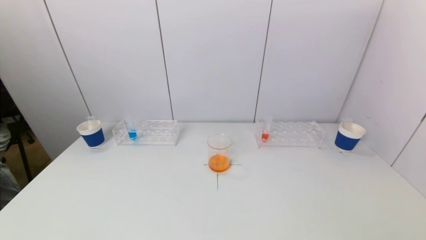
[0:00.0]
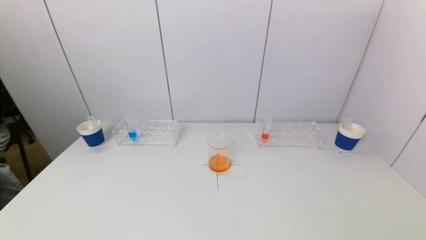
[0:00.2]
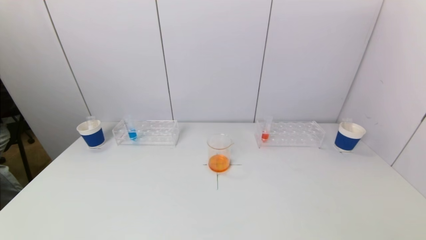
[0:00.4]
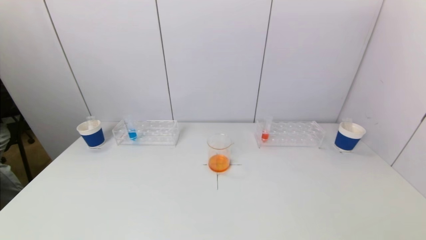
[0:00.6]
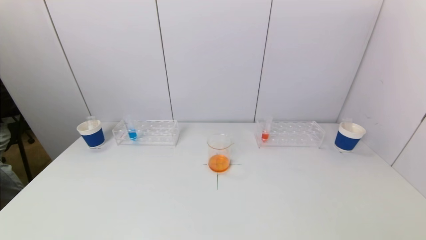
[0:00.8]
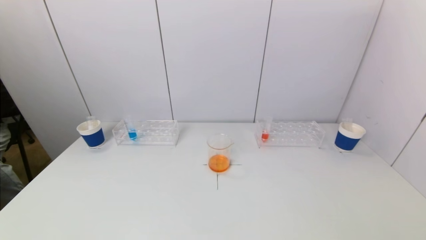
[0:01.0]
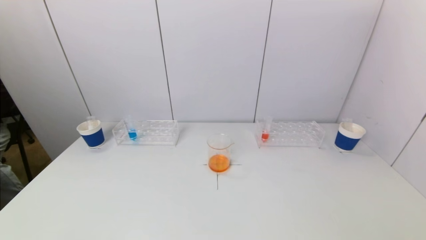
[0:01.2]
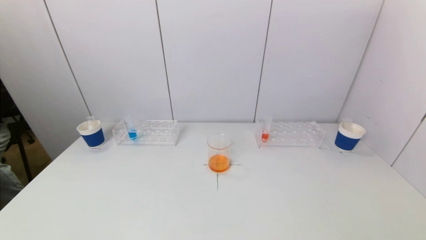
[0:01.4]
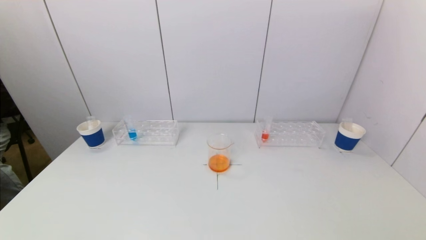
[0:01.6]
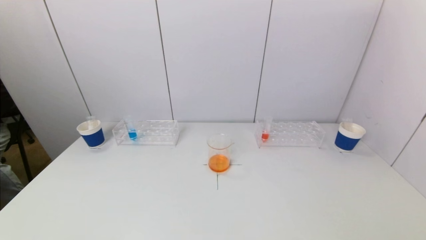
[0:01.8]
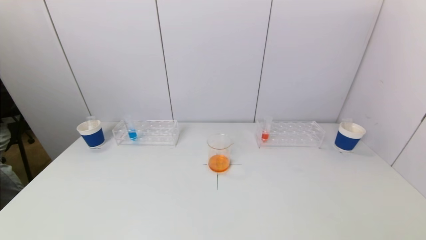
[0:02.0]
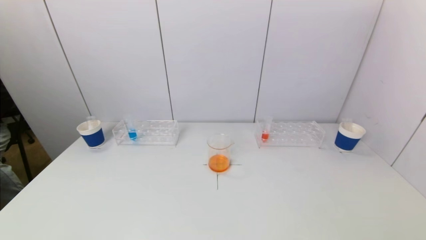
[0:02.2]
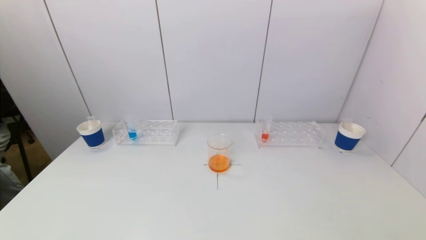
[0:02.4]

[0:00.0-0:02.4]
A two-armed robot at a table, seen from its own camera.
Task of the whole recording: pick up a test tube with pigment on left test tube rack and a test tube with pigment on right test tube rack by grippers and pour them into the beaker.
0:01.2 to 0:02.4: Neither gripper changes place.
